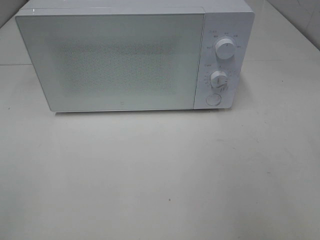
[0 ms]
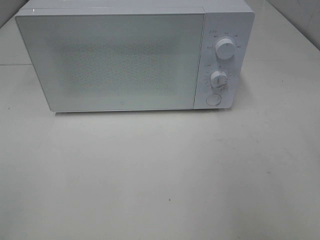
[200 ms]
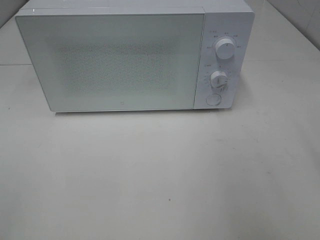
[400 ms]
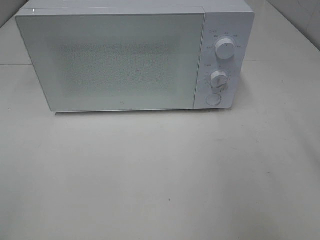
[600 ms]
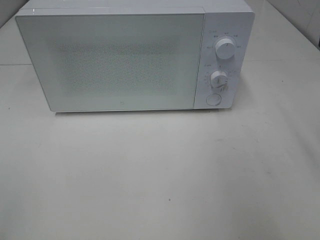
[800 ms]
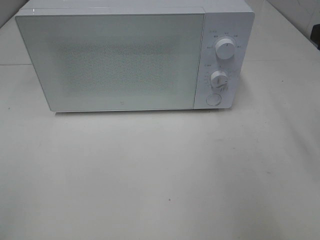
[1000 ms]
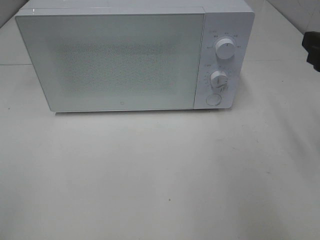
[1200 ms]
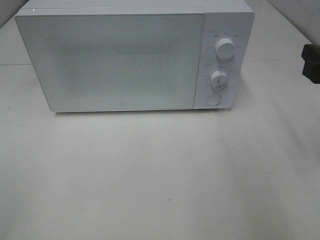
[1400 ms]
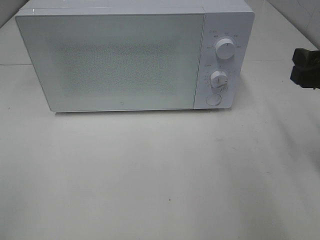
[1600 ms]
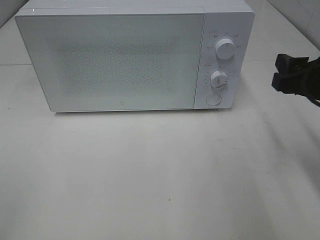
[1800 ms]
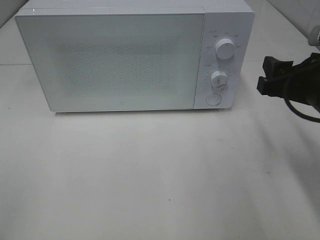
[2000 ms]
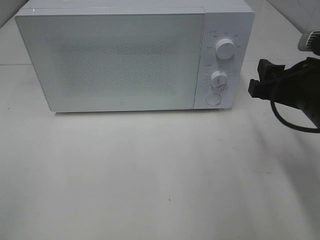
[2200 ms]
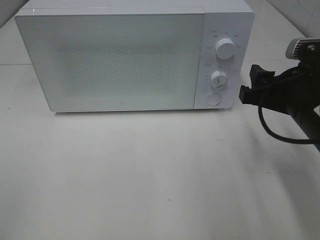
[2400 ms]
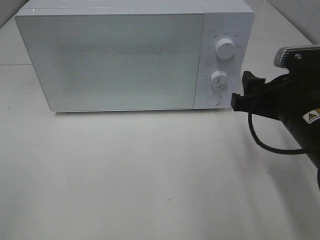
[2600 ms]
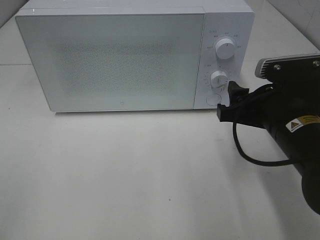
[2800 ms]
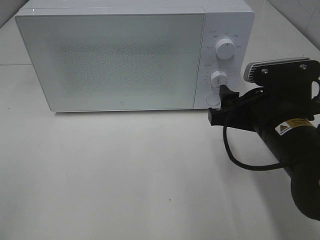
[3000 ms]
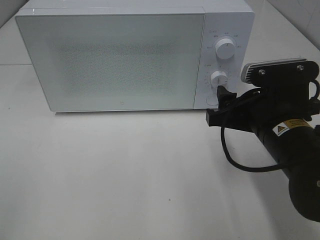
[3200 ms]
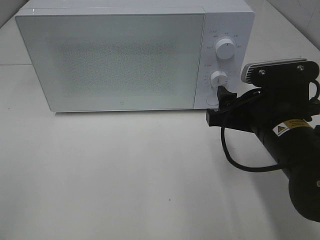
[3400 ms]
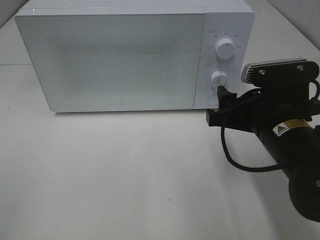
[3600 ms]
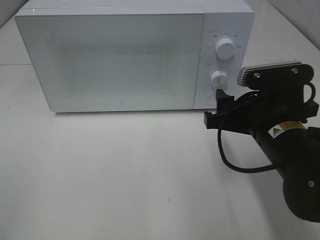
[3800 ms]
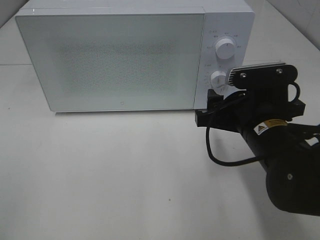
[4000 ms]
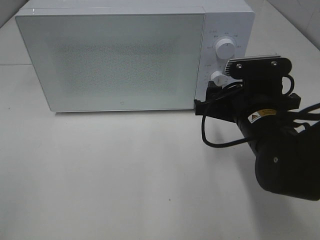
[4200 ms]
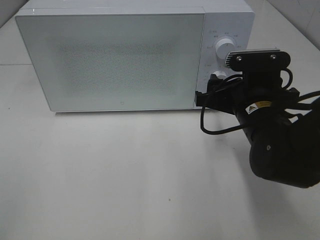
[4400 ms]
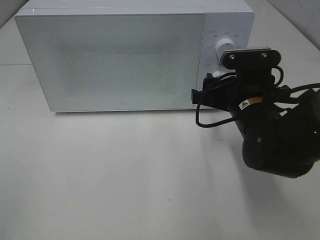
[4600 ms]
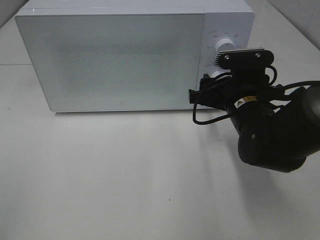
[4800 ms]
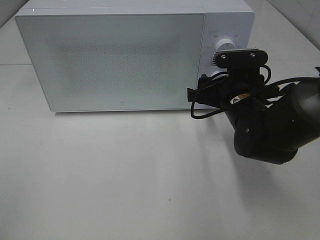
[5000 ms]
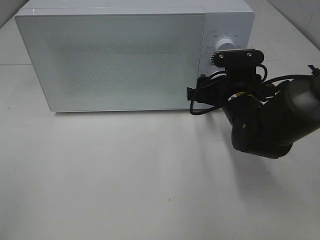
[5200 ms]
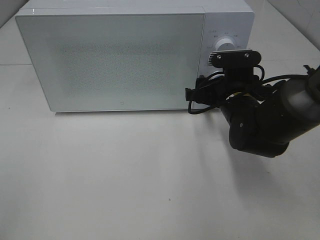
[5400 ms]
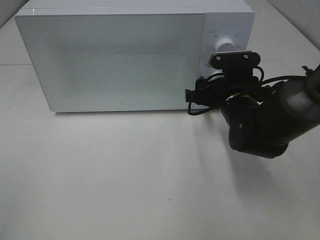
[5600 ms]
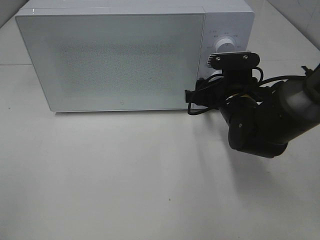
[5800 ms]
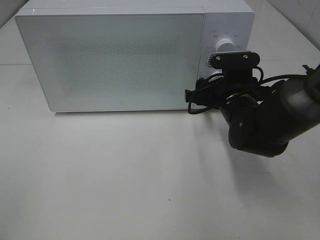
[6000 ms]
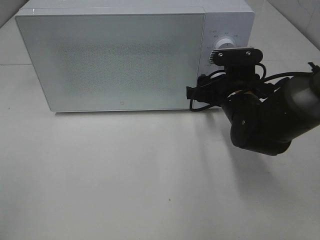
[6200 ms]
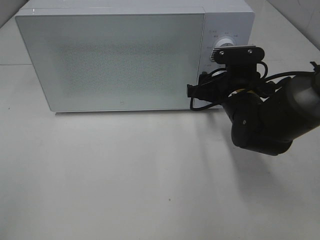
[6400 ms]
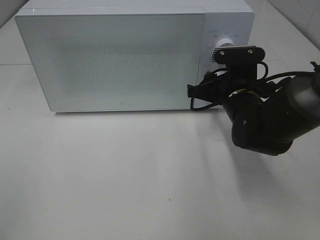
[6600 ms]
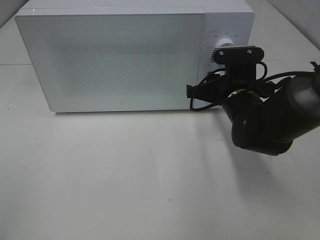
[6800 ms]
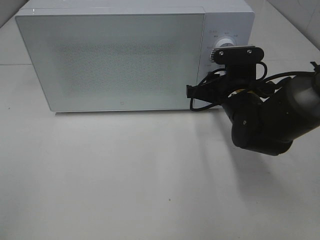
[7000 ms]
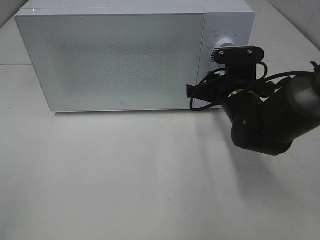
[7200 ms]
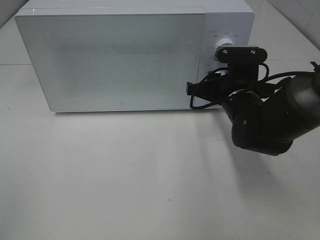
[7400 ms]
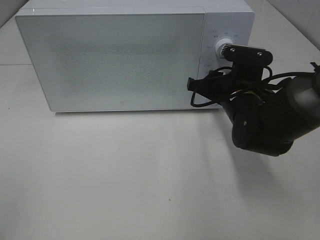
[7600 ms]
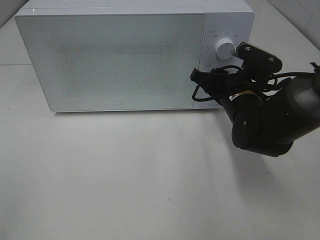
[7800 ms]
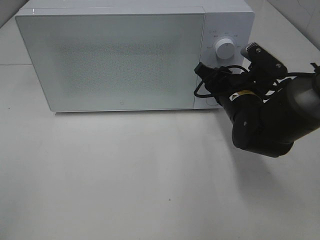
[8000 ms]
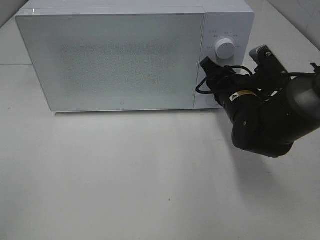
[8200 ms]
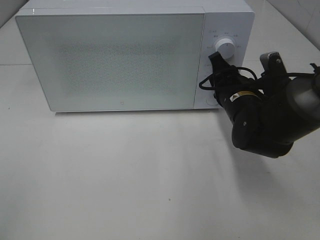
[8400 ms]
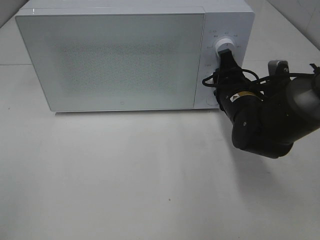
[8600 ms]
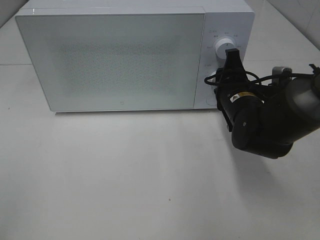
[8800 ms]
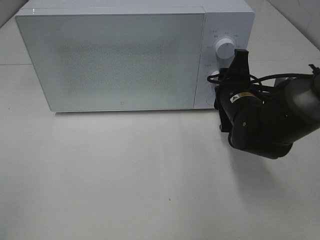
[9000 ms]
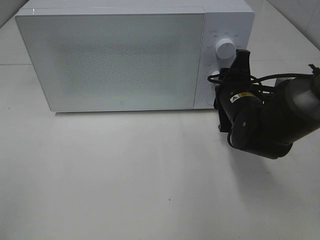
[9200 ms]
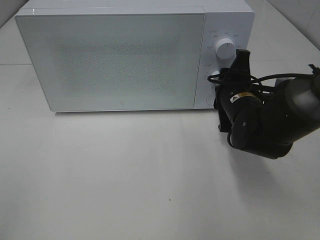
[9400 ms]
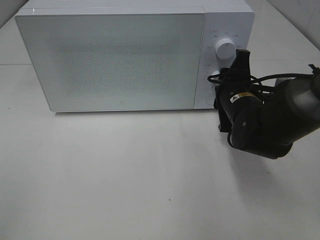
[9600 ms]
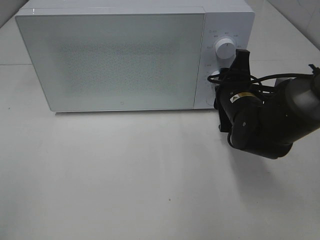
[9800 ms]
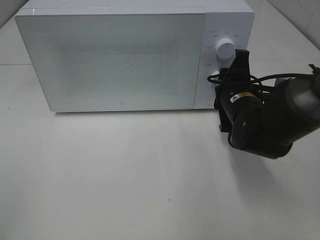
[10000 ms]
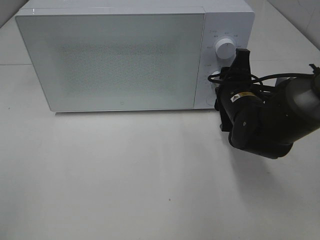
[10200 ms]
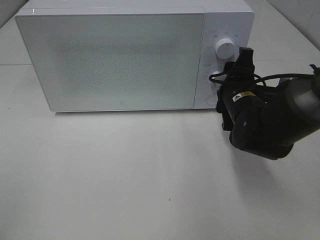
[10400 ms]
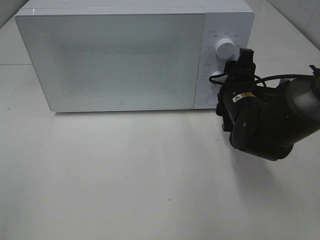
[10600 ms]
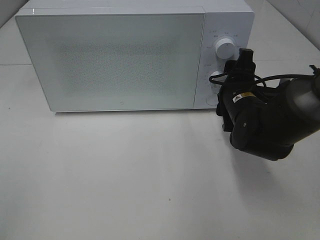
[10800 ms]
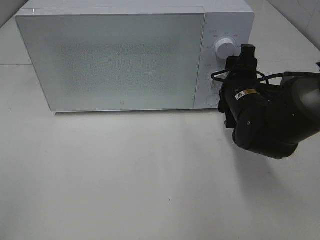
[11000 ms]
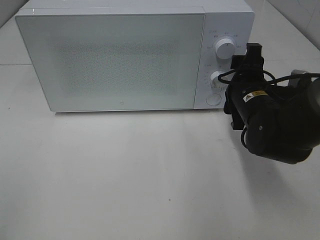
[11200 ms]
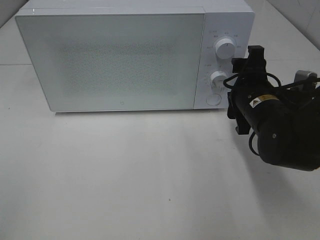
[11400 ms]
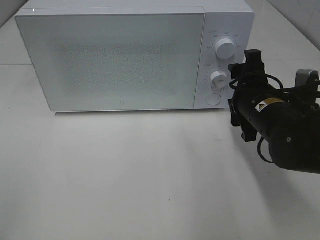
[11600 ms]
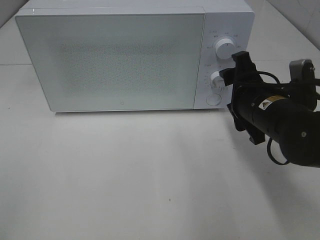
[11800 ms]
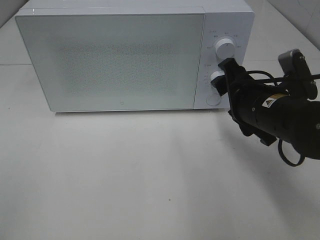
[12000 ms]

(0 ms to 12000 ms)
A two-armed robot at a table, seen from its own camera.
Task of the whole recording: Heat Sandwich.
Step, 0 ms - 10800 ms: Right hand: twist timer button.
0 ms - 1600 ms: The right gripper travels forward and downward by approximately 15 cm.
1600 ms - 3000 ms: The right gripper shifts some 10 cm to the left and downward.
3000 ms - 4400 ms: The right gripper is displaced forward by approximately 5 cm.
4400 ms - 6000 ms: The right gripper heads forward, covering approximately 5 cm.
6000 ms - 7600 ms: The right gripper closes.
9000 ms - 10400 ms: Both grippers stay about where they are.
10400 ms - 12000 ms: The right gripper shifts roughly 5 cm backward.

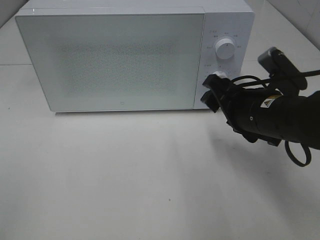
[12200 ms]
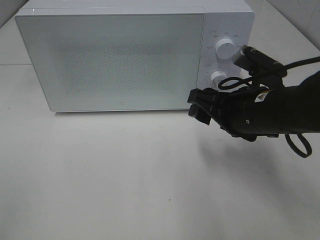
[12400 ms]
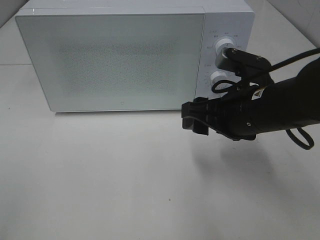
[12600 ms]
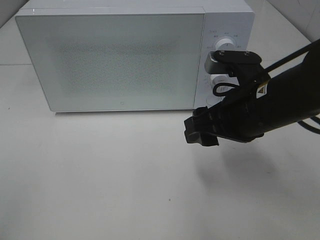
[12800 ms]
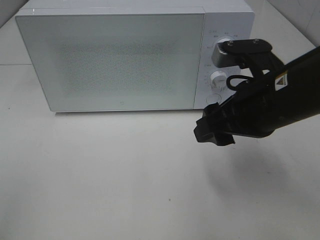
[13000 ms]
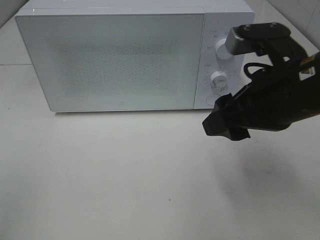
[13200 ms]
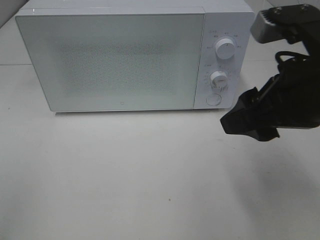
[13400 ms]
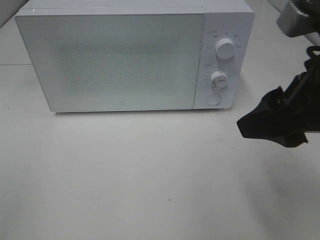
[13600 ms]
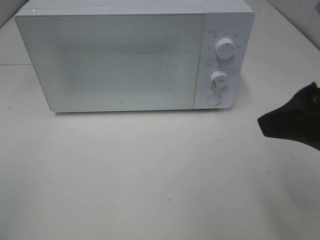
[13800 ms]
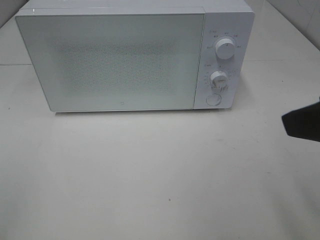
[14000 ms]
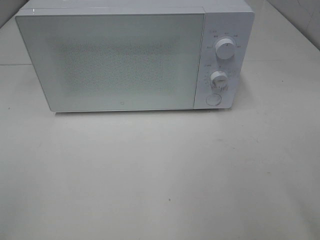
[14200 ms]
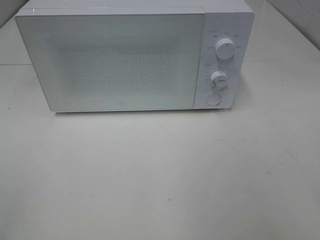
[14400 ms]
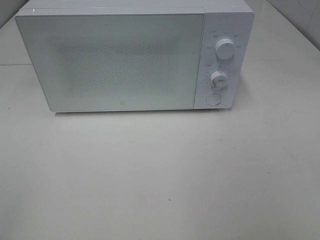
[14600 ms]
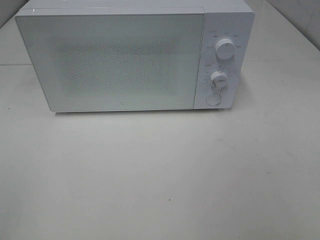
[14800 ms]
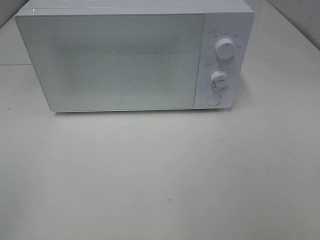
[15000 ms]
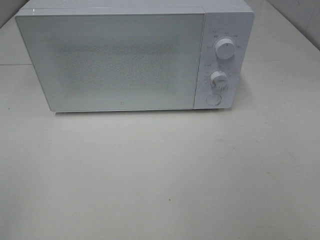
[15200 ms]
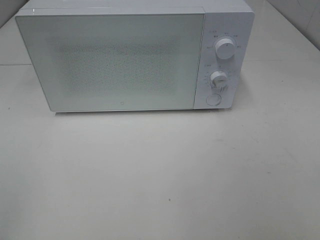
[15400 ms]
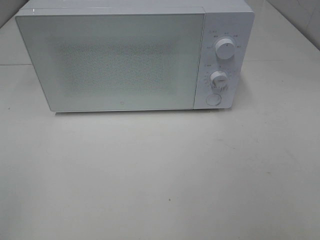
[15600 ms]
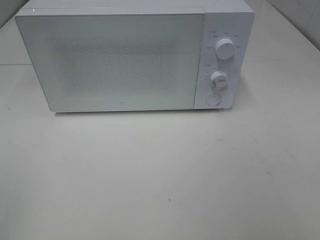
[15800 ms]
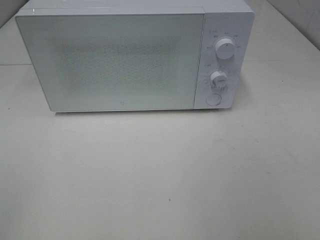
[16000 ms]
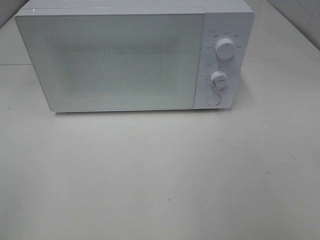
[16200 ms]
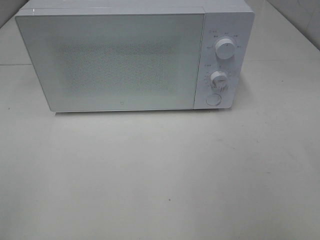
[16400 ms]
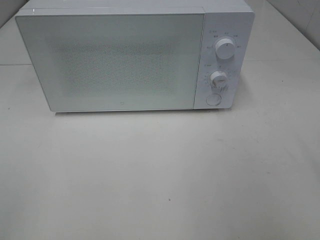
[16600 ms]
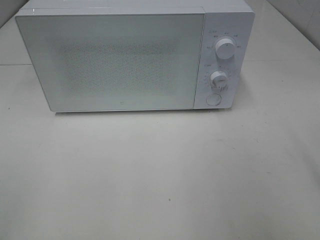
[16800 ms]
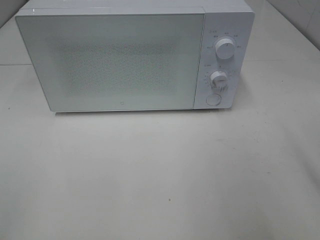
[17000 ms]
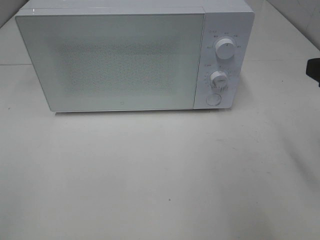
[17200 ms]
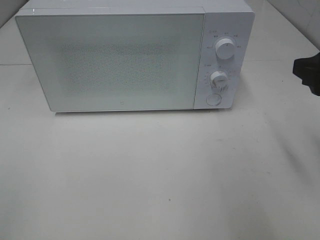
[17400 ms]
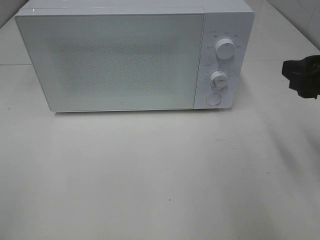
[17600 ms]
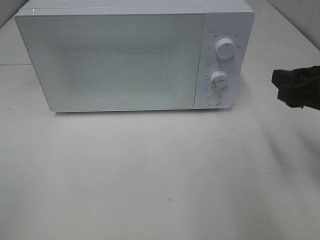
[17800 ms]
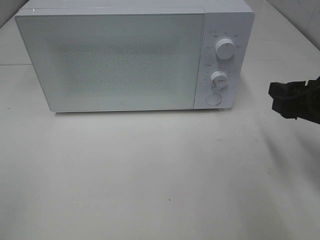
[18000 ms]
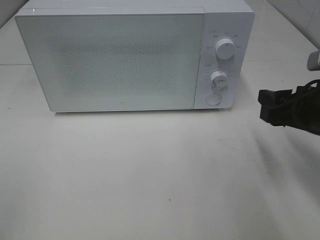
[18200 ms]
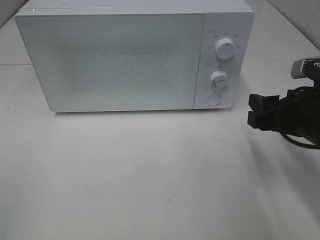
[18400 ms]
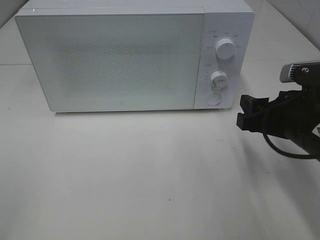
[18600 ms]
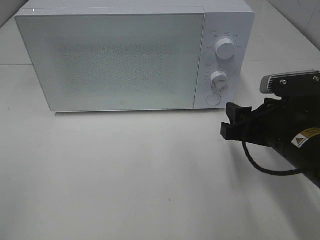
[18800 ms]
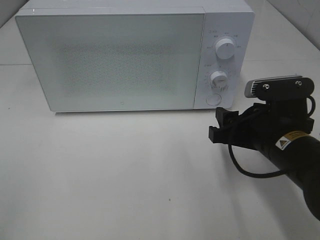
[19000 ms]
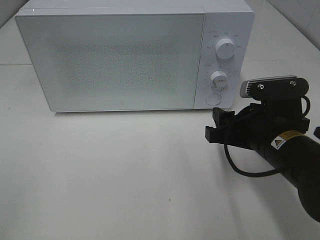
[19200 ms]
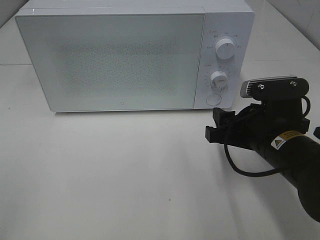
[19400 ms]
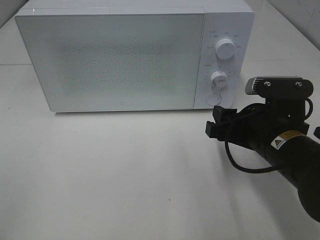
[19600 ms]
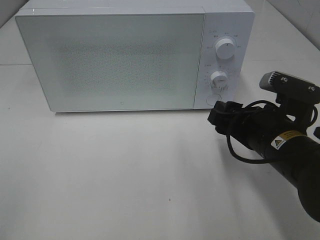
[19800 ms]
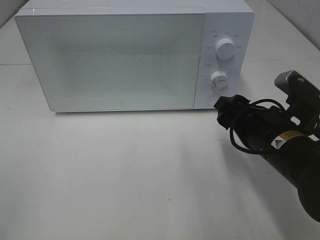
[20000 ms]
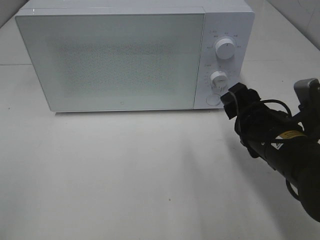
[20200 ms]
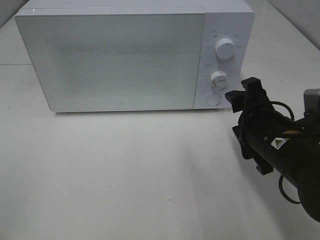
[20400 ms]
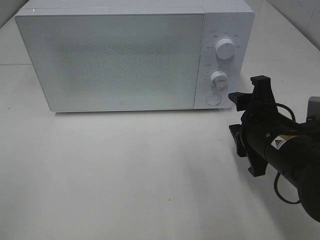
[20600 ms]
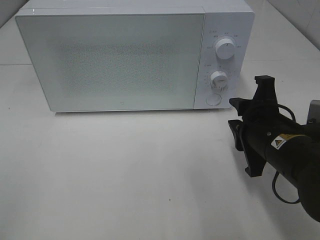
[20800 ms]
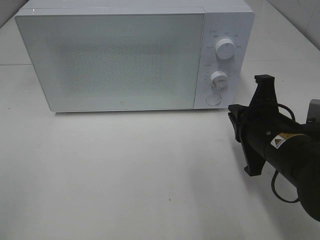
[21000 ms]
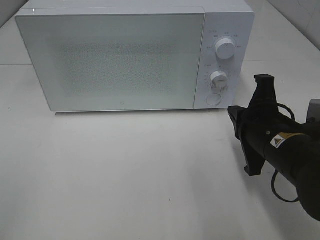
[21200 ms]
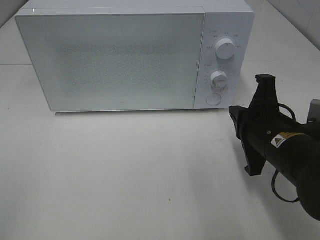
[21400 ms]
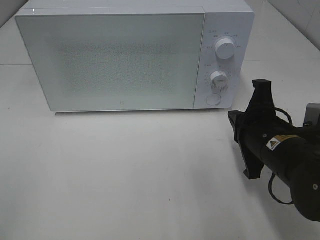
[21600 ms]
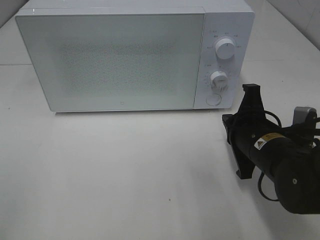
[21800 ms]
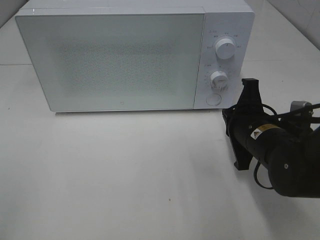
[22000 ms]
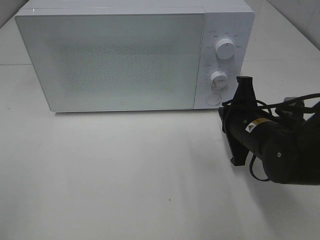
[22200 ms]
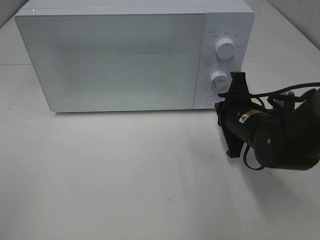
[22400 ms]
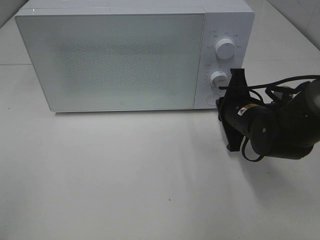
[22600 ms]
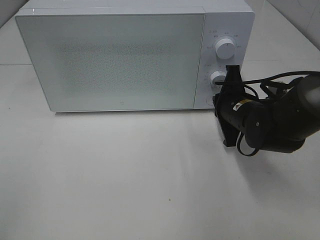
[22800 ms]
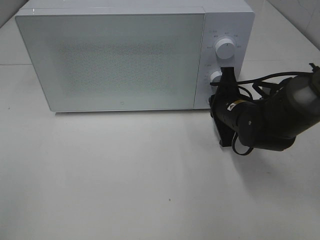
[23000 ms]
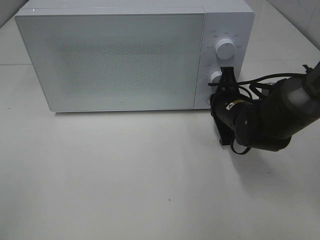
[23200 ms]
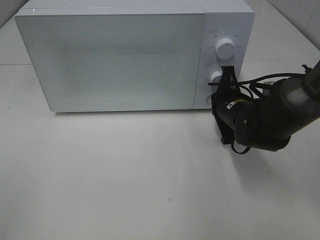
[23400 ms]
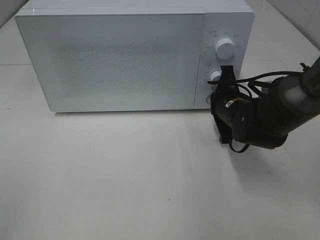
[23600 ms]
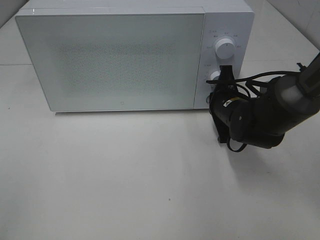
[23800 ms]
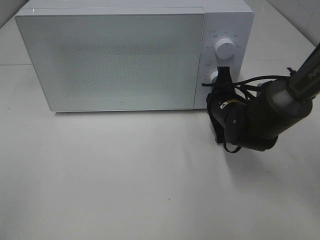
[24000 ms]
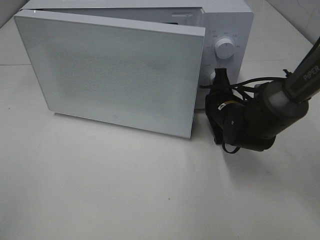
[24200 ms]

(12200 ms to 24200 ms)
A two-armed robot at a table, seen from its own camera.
Task of the whole recording: Heat Sandwich.
12200 ms - 13800 ms: The right gripper goes about 20 cm upward and backward.
13800 ms - 15200 ms: The right gripper shifts about 15 cm backward and to the right.
16600 ms - 18200 ms: The right gripper shifts approximately 15 cm downward and forward.
18200 ms - 19800 ms: The right gripper moves to the left, roughly 5 cm.
19800 ms - 21200 ms: The right gripper closes its fingers.
21200 ms - 22600 ms: The right gripper shifts approximately 10 cm forward.
22600 ms - 24200 ms: The right gripper shifts by approximately 5 cm.
